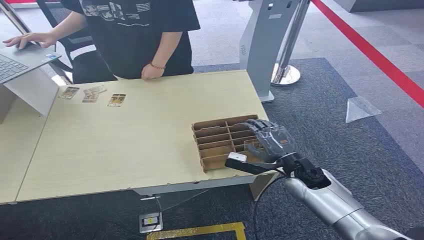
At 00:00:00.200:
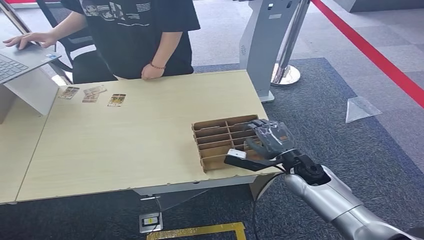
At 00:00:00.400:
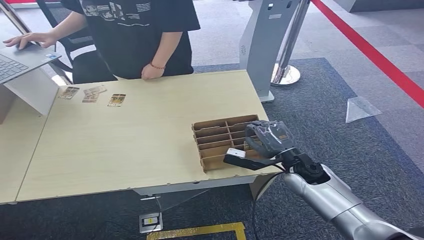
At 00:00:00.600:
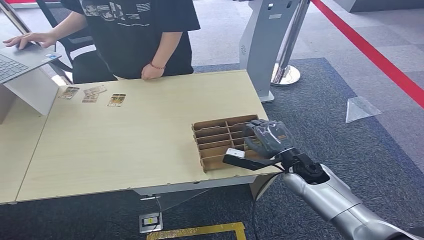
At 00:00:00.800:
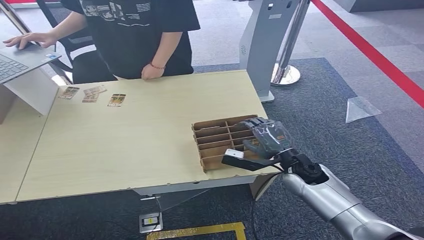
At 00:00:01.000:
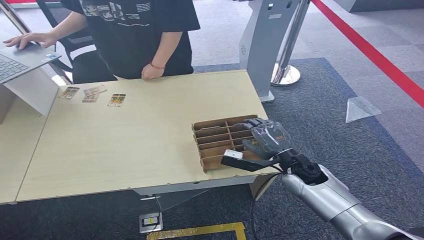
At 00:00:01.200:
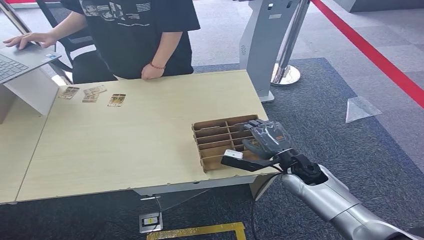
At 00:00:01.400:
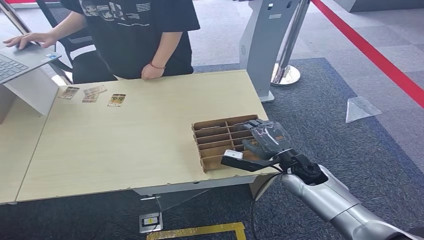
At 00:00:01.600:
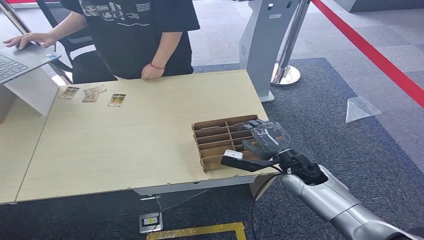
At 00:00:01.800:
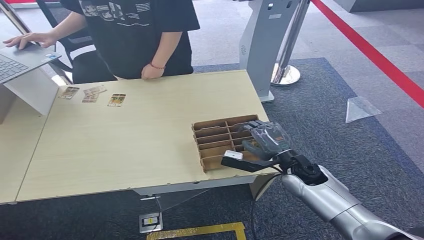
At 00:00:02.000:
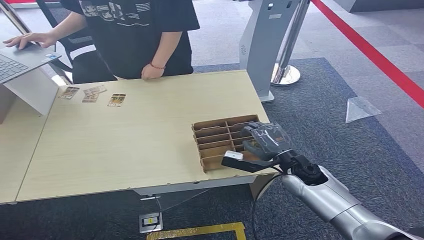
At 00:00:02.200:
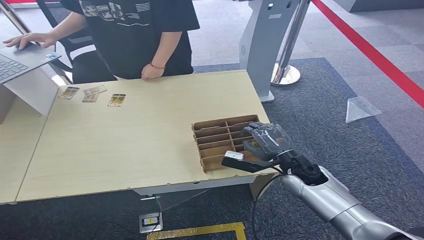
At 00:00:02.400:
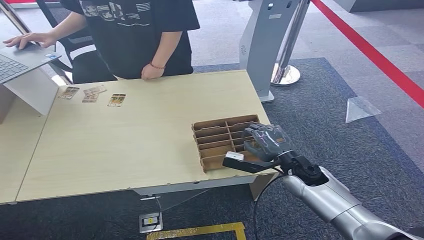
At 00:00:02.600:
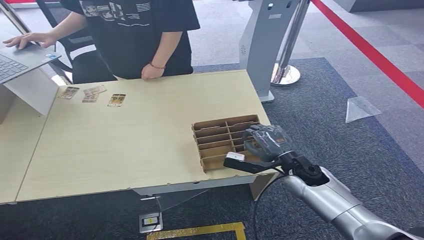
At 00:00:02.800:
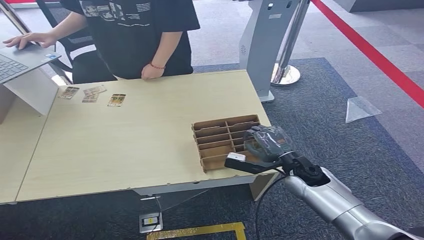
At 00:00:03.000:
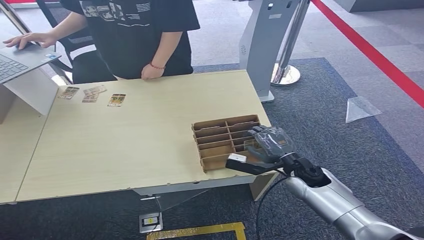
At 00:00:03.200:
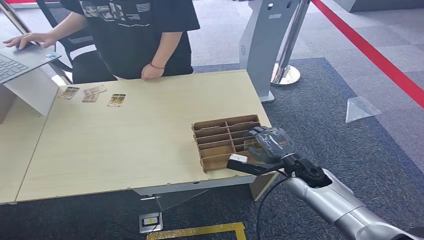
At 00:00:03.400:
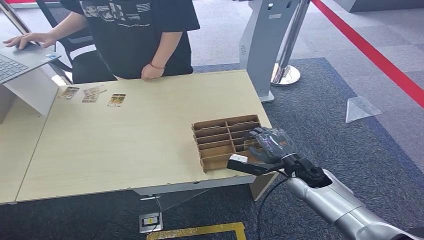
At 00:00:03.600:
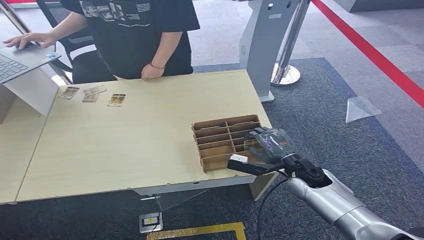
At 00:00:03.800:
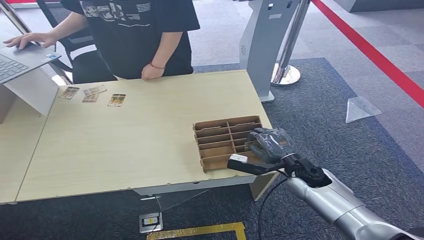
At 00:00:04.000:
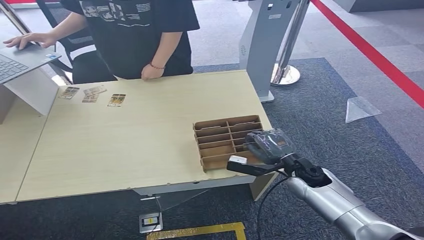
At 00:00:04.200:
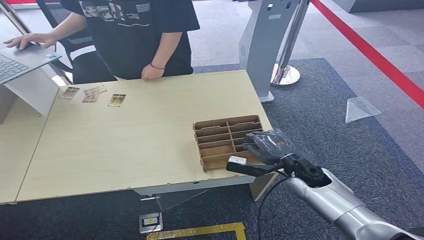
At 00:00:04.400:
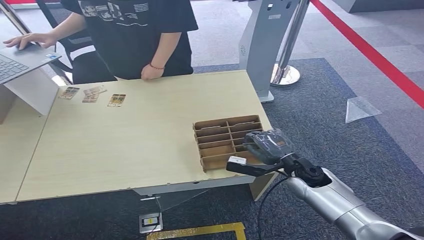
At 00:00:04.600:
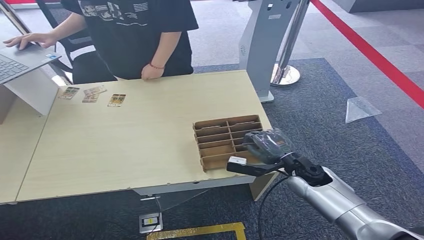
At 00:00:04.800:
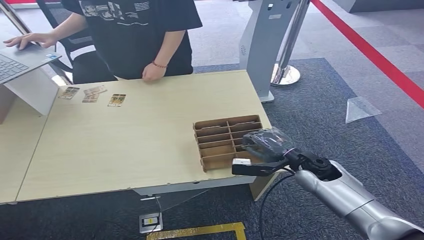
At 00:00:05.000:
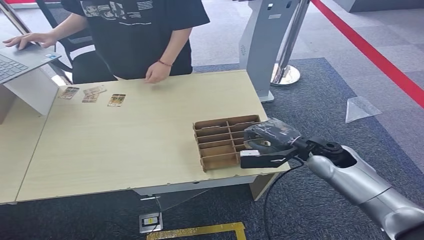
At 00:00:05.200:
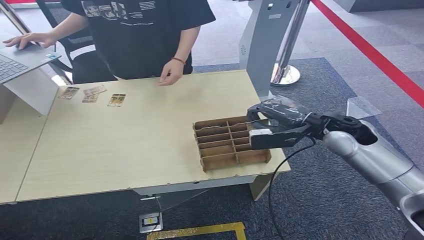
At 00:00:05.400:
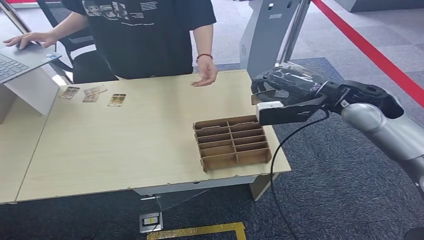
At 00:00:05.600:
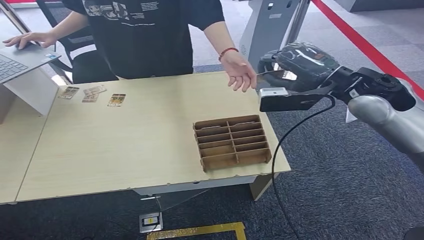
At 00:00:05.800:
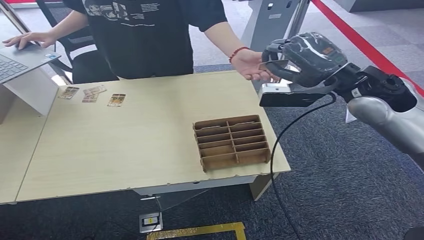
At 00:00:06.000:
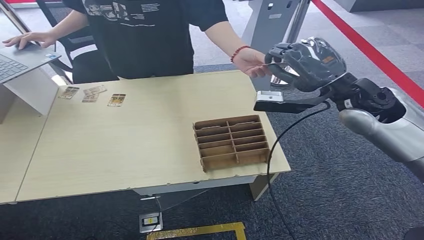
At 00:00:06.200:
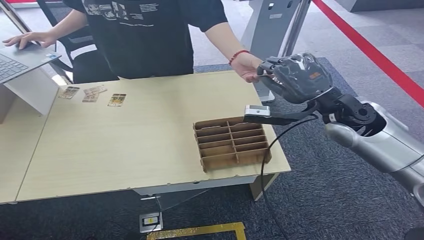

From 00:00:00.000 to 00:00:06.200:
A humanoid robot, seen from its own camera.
Task of the whole recording: Pick up the card and hand it over to the target person.
Step, from 00:00:00.000 to 00:00:05.000: Pick up the key card from the card box.
Step, from 00:00:05.200 to 00:00:06.200: Hand the key card to the target.
From 00:00:01.600 to 00:00:03.200: The hands move only a little.
From 00:00:03.200 to 00:00:04.600: The right hand moves upward, about 5 cm.
From 00:00:04.600 to 00:00:06.200: The right hand shifts approximately 10 cm upward.

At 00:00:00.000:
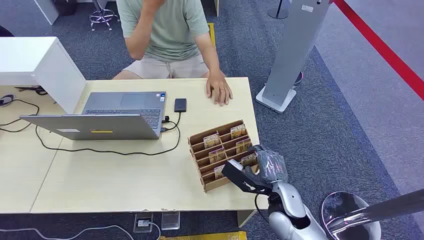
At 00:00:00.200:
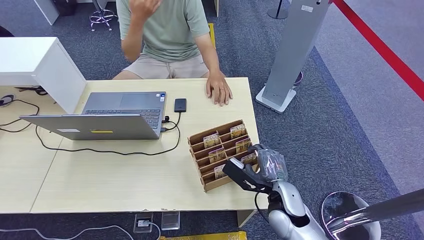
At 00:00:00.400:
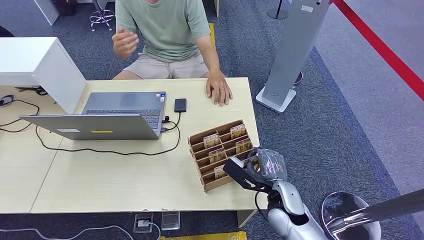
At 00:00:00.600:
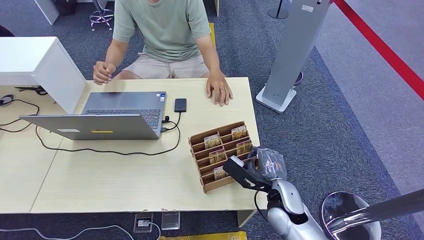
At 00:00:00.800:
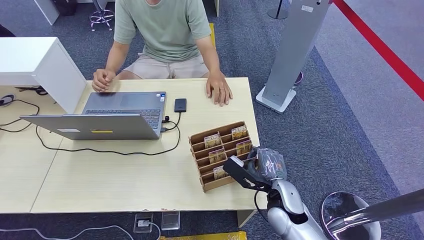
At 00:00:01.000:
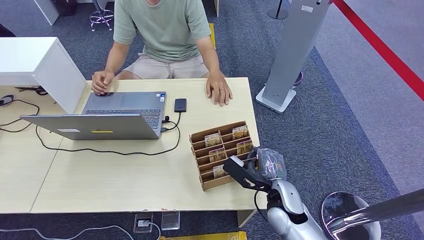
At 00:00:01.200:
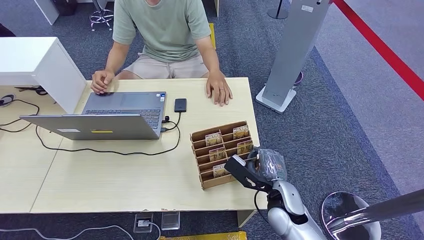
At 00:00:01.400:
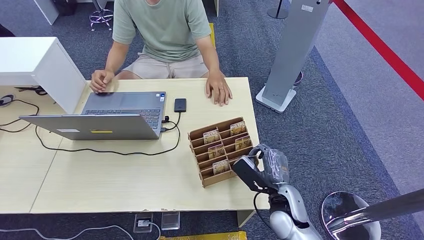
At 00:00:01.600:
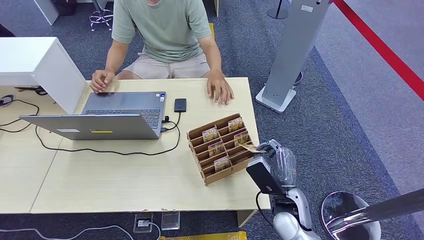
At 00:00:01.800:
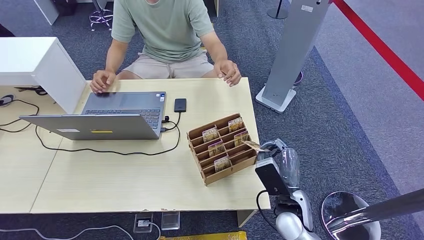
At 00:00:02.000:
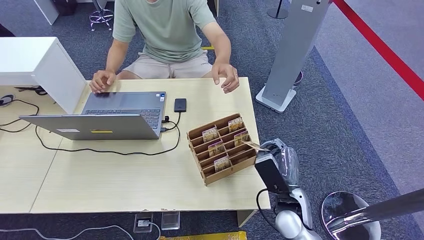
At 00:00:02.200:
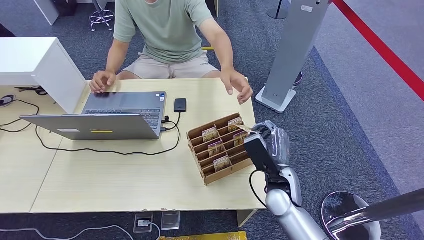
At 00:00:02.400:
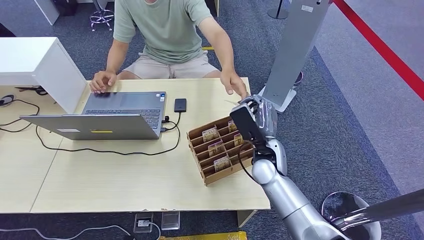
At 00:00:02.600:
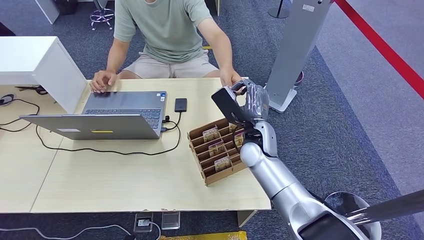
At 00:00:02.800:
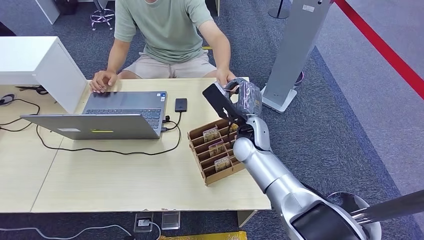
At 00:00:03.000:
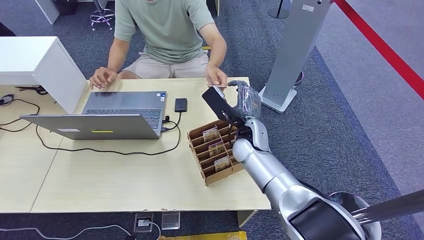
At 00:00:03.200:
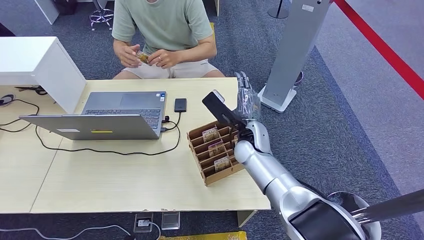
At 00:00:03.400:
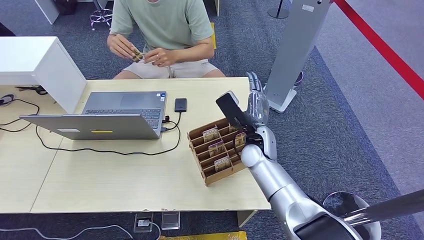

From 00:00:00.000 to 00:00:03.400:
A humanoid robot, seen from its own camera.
Task of the whole recording: Pick up the card and hand it over to the target person.
Step, from 00:00:00.000 to 00:00:01.600: Pick up the key card from the card box.
Step, from 00:00:02.400 to 00:00:03.400: Hand the key card to the target.
From 00:00:01.600 to 00:00:03.400: The right hand travels upward and forward by roughly 15 cm.
